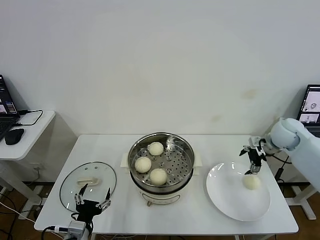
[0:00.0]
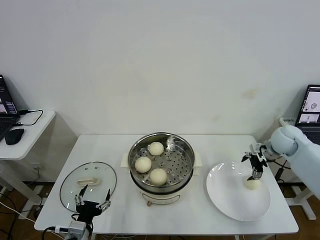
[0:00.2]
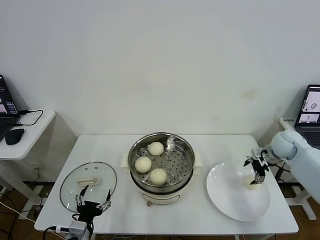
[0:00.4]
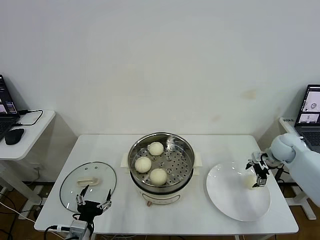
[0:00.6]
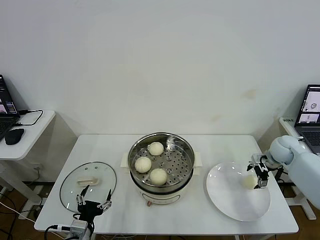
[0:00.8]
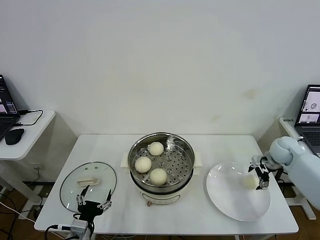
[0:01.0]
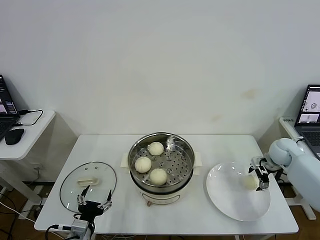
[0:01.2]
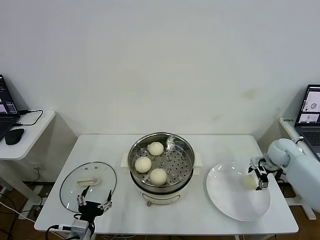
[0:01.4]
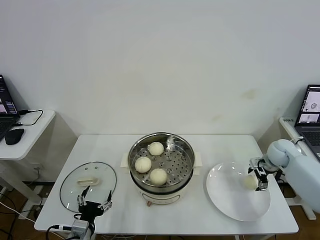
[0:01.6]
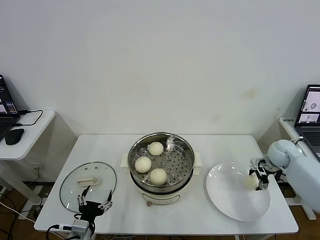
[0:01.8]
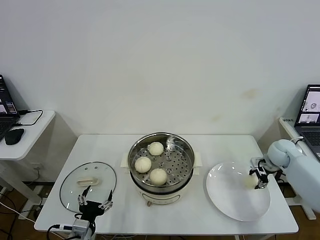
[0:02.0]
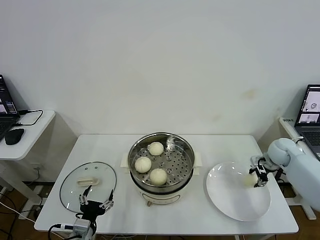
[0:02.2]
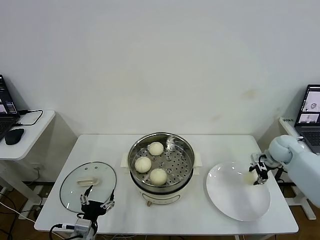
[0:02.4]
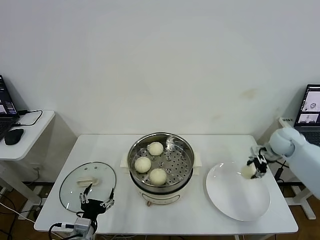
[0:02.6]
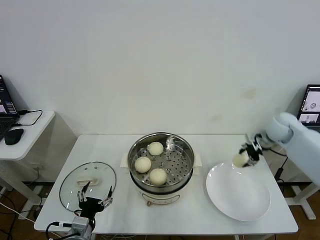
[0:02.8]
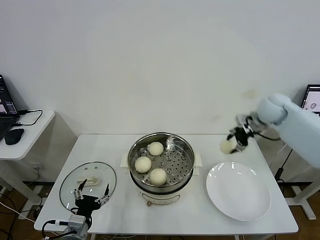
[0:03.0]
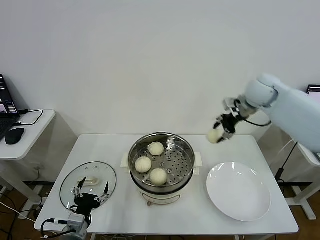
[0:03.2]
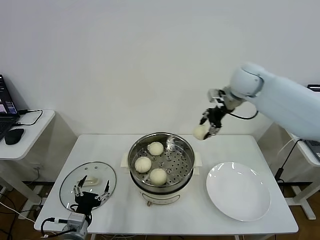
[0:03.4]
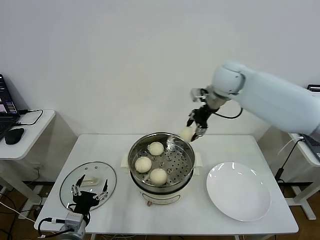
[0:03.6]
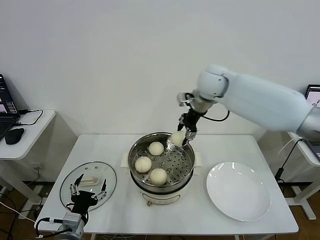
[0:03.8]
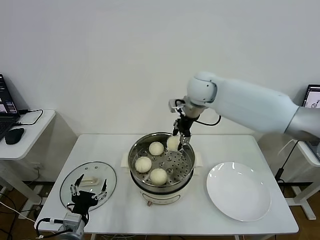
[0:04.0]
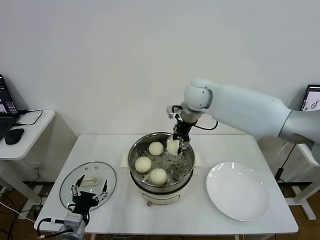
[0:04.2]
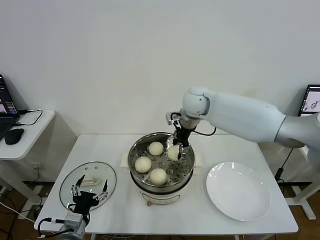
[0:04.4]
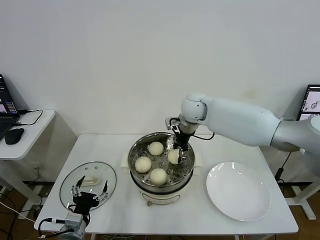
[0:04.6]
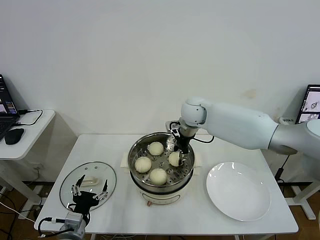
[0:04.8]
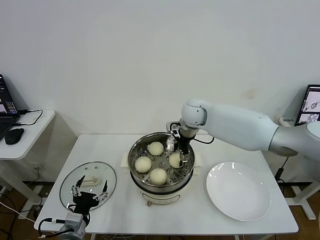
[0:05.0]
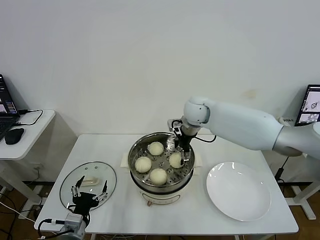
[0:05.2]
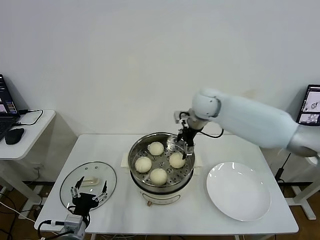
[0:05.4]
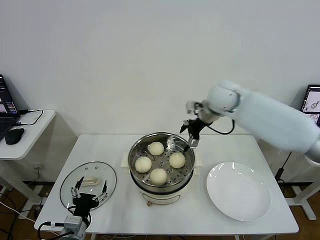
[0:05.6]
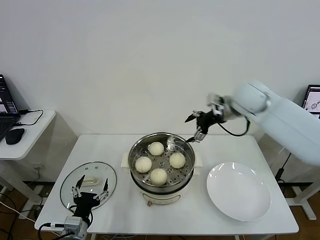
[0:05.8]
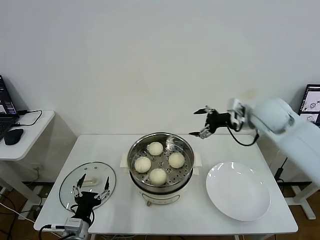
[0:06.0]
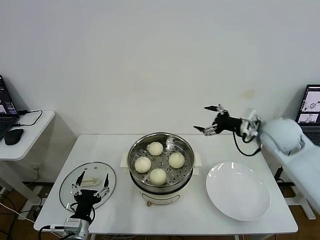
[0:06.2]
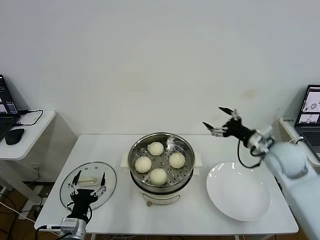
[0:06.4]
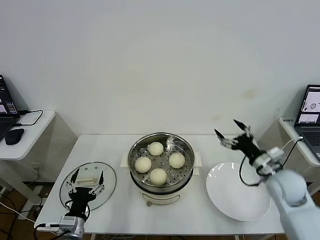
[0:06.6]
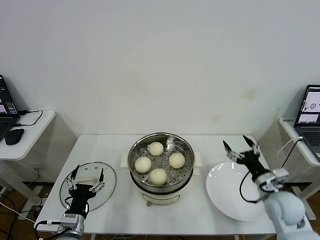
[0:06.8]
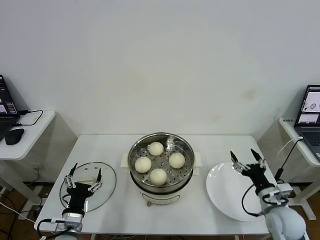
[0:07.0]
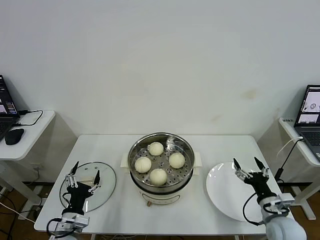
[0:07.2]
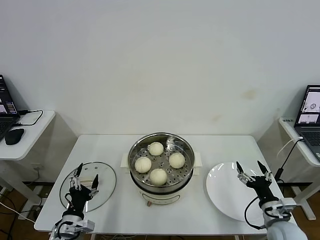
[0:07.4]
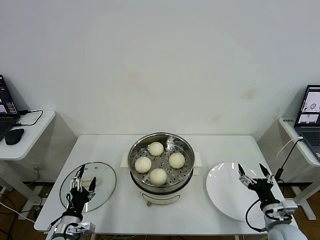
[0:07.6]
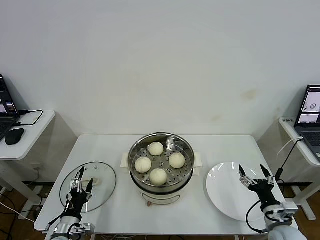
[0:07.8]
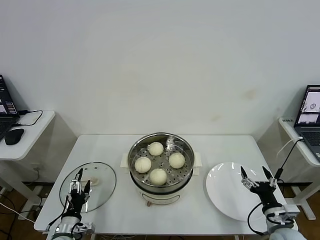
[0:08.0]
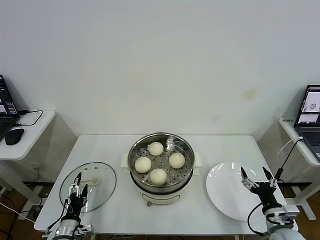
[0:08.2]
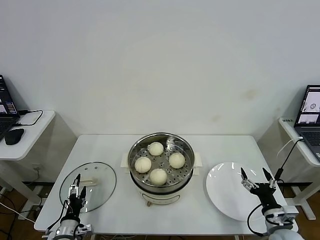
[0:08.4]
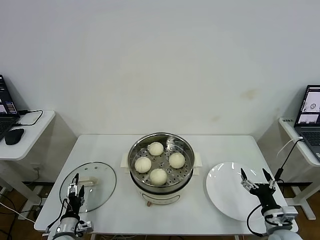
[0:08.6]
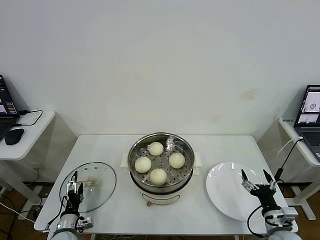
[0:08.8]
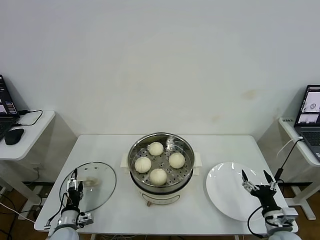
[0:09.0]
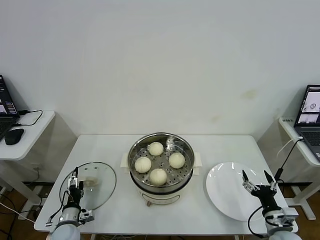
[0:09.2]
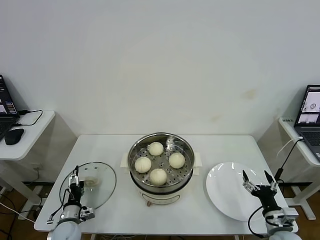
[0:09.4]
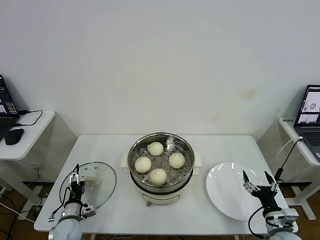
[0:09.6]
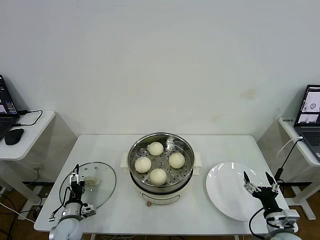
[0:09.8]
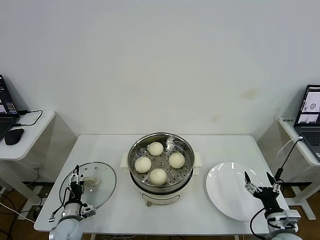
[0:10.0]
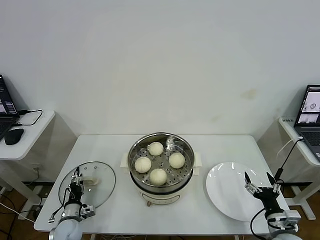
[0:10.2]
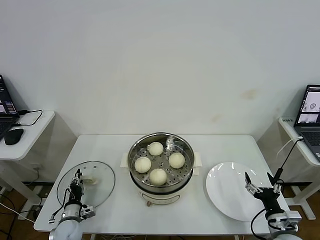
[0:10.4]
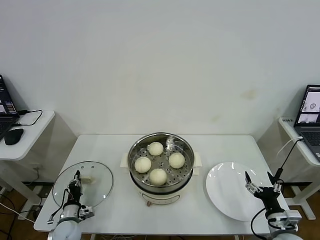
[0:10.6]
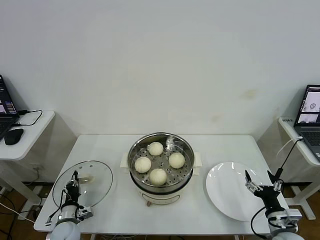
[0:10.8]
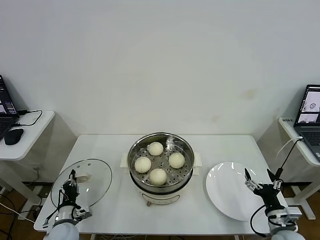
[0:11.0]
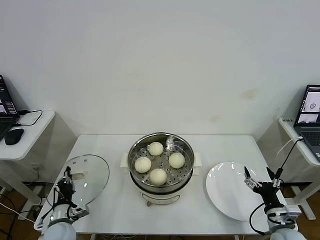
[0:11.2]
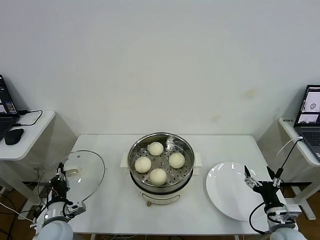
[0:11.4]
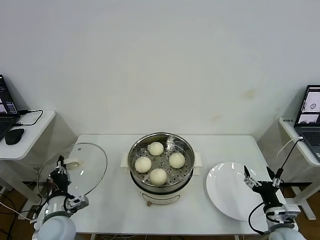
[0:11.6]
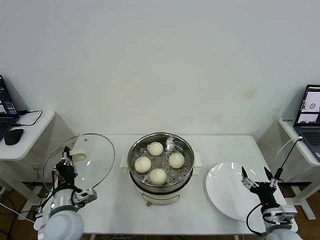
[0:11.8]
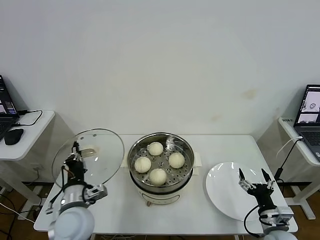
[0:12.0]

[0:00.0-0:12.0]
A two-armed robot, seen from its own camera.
Task of the whole recording: take steamed baozi put them in steamer then cover it.
Step, 0:00.0 to 0:02.0: Grasp the baozi in the plate with right gripper.
Step, 0:02.4 to 0:05.2: Place the baozi on the steamer with right gripper.
Step, 0:05.4 to 0:10.8: Grasp the pot lid with left gripper.
0:00.0 to 0:01.6: The right gripper moves downward, about 10 cm.
0:01.6 to 0:03.0: The right gripper travels upward and to the left by some 20 cm, and closes.
0:03.0 to 0:04.4: The right gripper moves to the left, about 25 cm.
0:04.4 to 0:06.0: The right gripper heads to the right and backward, covering about 20 cm, and opens its fingers.
0:06.0 to 0:07.6: The right gripper heads downward and backward, covering roughly 40 cm. Meanwhile the left gripper changes place by about 5 cm.
0:07.6 to 0:09.0: The left gripper moves downward, about 10 cm.
0:09.0 to 0:10.4: The left gripper closes.
0:10.4 to 0:12.0: The left gripper travels upward and to the right by some 25 cm, and closes its fingers.

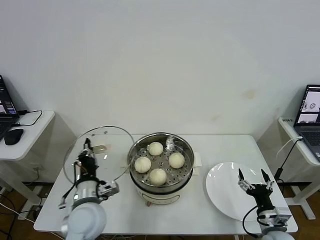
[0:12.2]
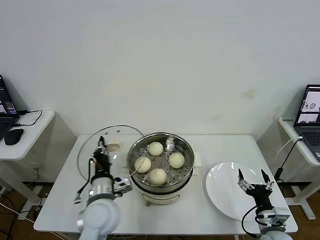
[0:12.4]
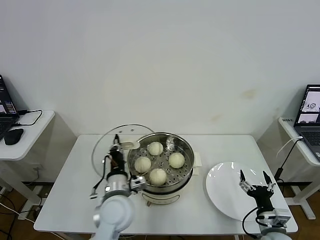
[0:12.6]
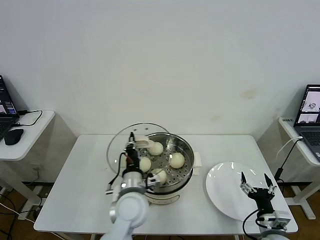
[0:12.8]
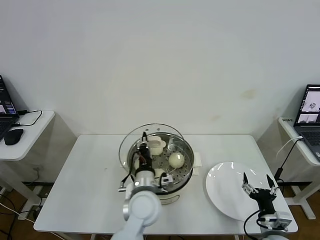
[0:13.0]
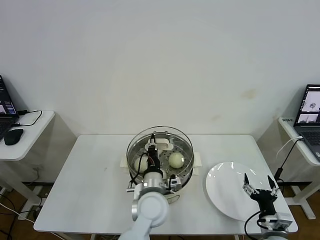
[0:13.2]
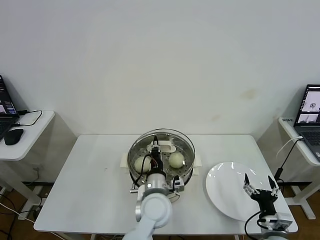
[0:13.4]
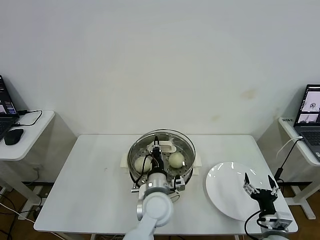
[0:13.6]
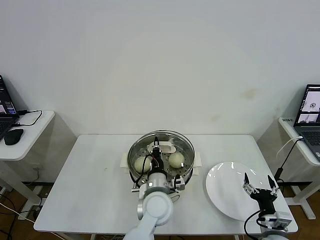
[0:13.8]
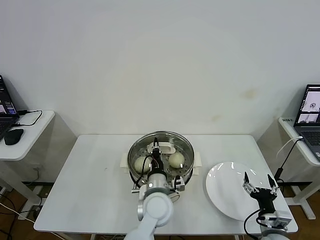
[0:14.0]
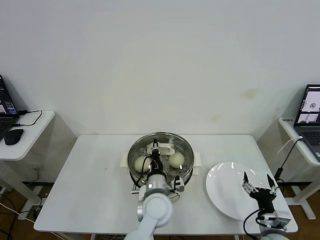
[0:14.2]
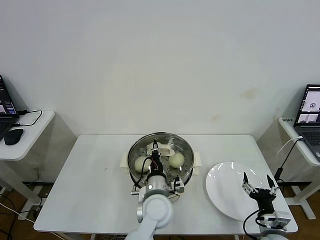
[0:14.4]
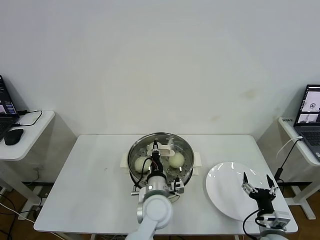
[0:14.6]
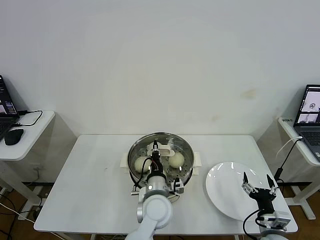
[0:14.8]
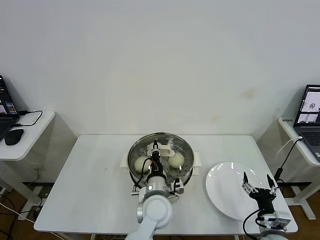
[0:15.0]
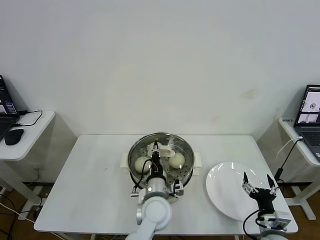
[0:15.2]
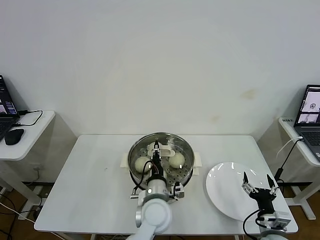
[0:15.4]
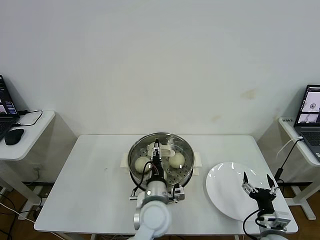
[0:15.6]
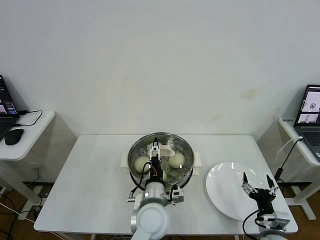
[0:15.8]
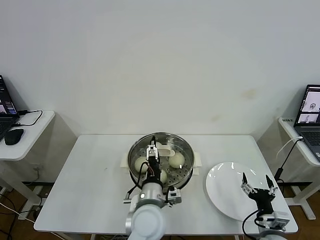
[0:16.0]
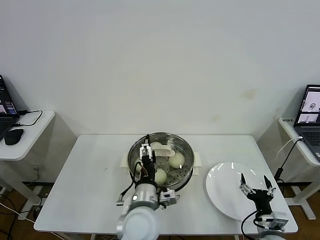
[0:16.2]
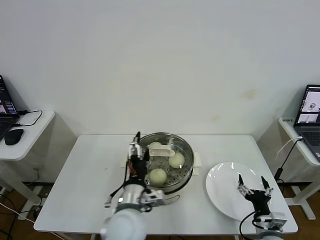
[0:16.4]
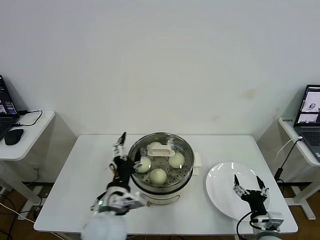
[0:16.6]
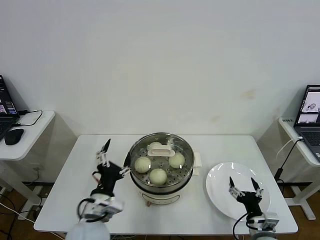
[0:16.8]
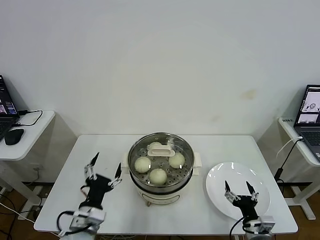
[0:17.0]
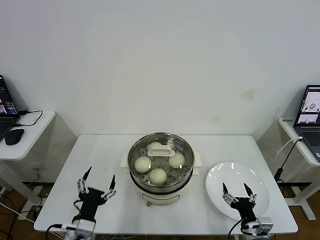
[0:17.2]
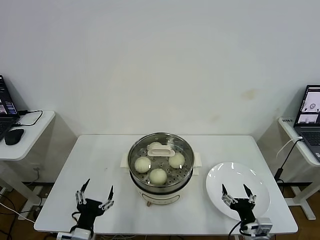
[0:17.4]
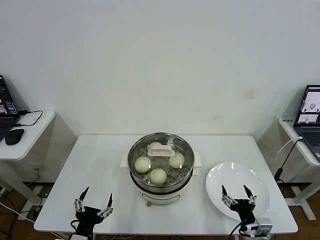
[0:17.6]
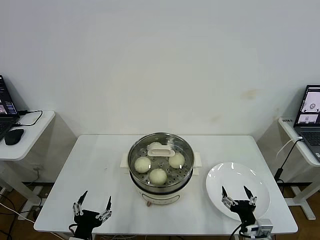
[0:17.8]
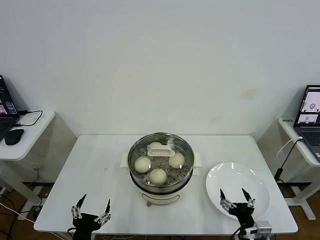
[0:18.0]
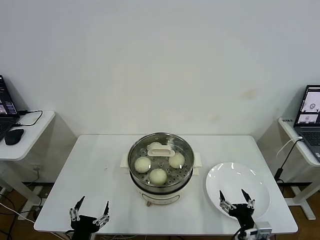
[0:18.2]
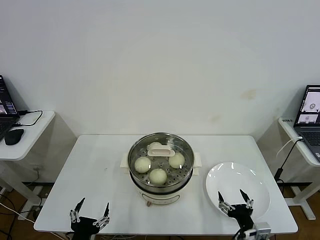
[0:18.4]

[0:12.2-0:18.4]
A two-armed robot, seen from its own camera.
Task of the whole recording: take steamed baozi put them in steamer then cover it.
Step, 0:12.2 to 0:15.6: Place the pot lid on the steamer with left gripper.
0:12.2 to 0:13.8: The left gripper travels to the right by about 20 cm.
0:13.8 to 0:15.4: The grippers stay close to where they were, moving slightly.
0:15.4 to 0:16.8: The left gripper moves to the left and backward, approximately 15 cm, and opens its fingers.
0:16.8 to 0:18.4: The left gripper travels backward, to the left and downward by roughly 15 cm. The right gripper shifts by roughly 5 cm.
